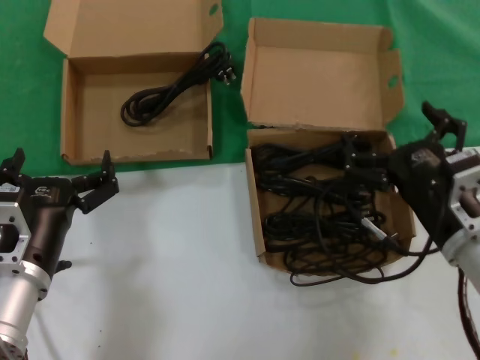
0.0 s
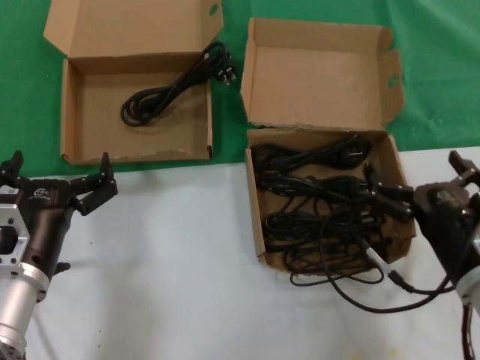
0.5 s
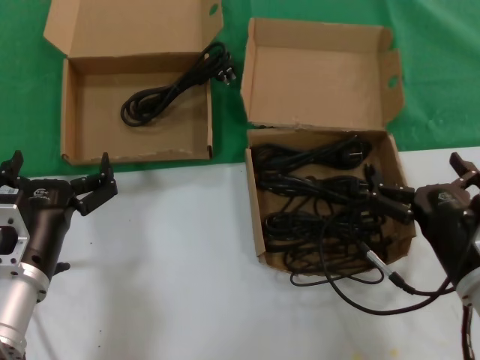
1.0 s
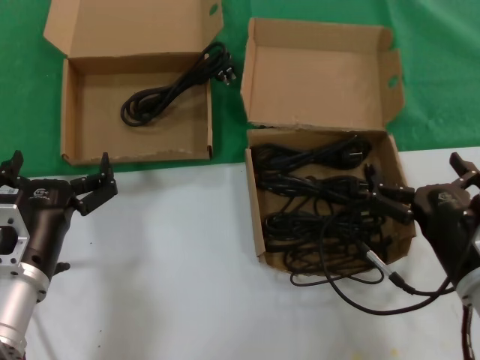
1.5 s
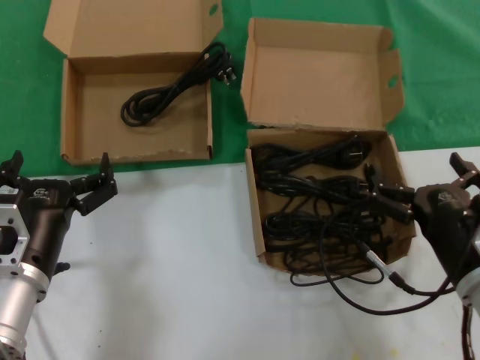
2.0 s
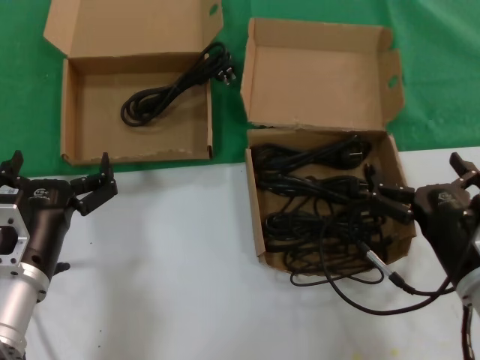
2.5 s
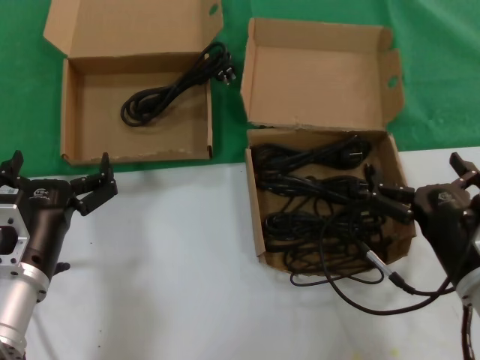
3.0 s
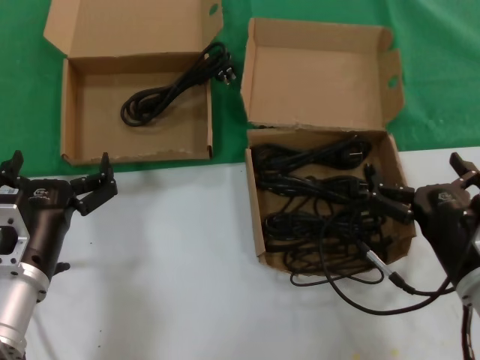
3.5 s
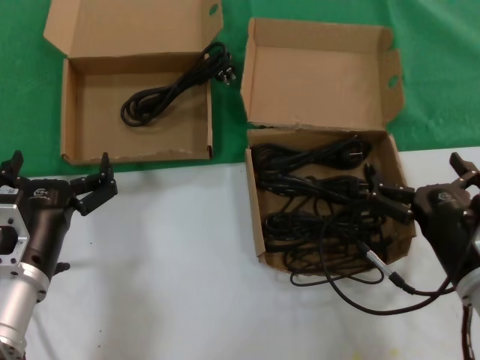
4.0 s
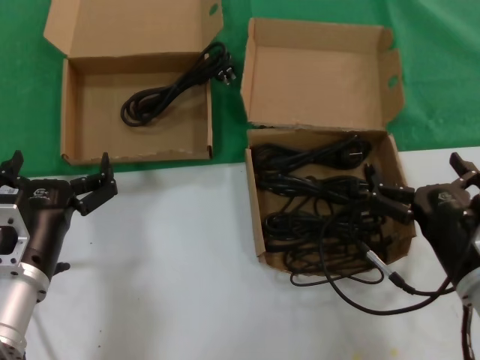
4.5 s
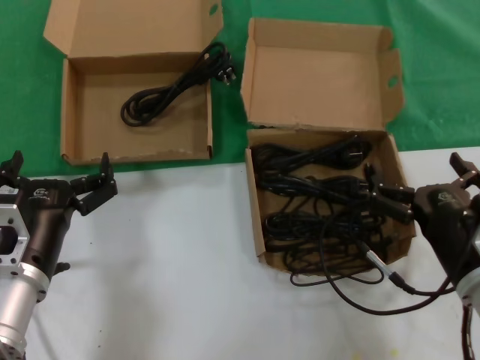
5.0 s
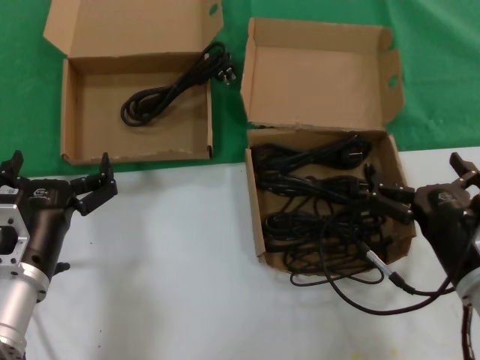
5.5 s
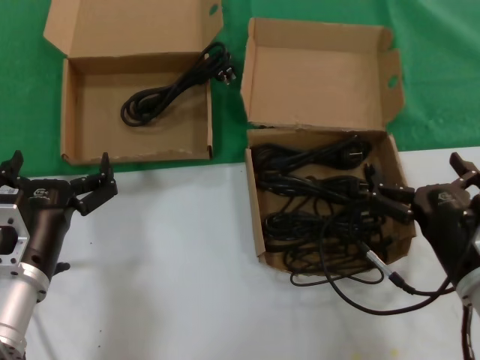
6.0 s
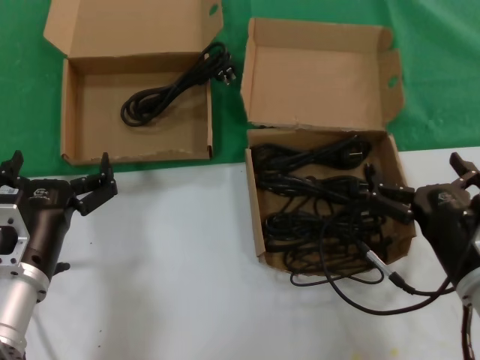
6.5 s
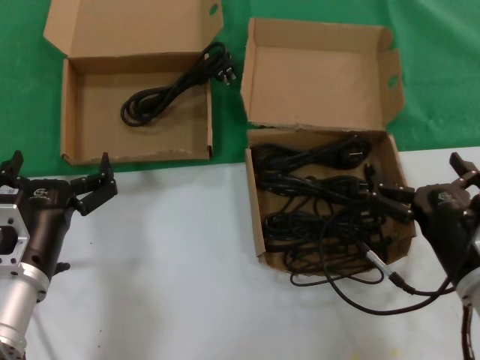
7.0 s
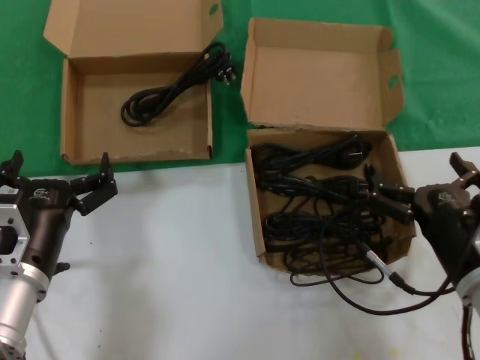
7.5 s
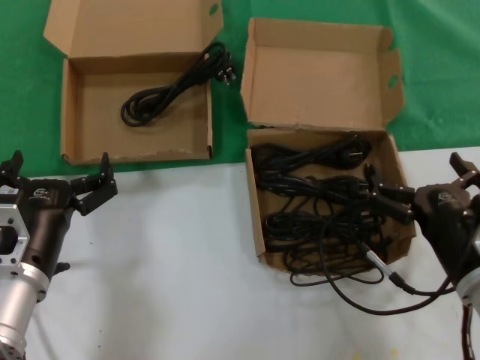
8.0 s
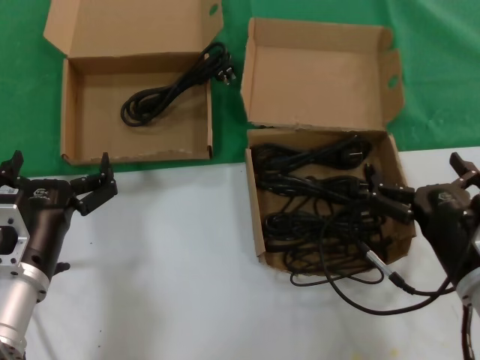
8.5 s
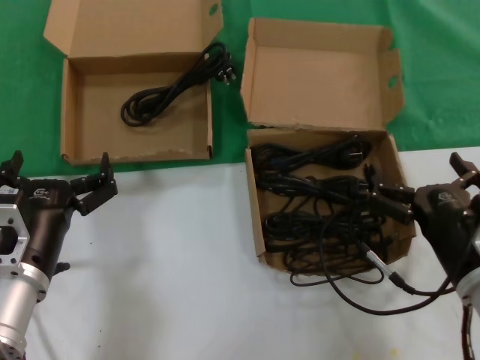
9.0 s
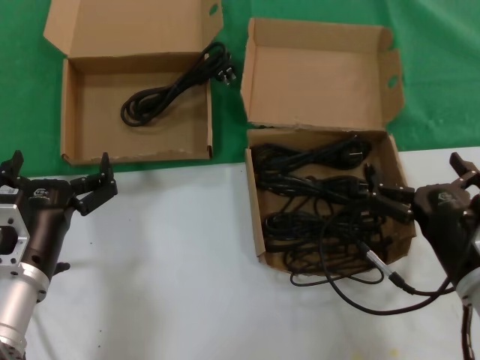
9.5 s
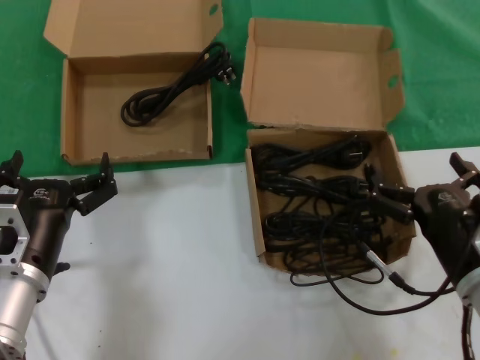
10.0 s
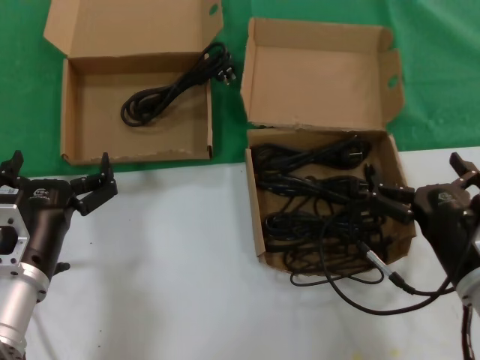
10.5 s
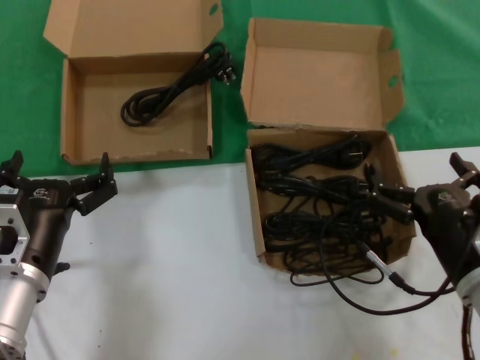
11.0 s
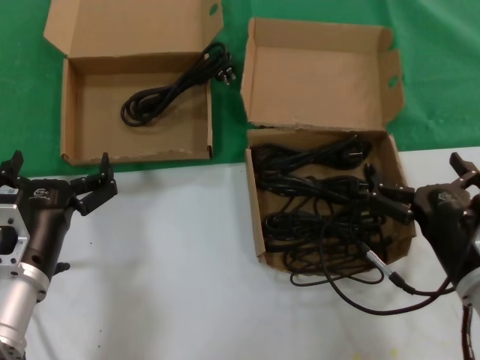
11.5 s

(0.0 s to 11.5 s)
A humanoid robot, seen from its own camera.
Task of the whole recording: take the parts from the box containing them and put them into an empty box.
0.0 s - 2.0 s: The right hand changes place by about 5 cm.
2.0 s - 11.5 s: The two hands keep their place.
